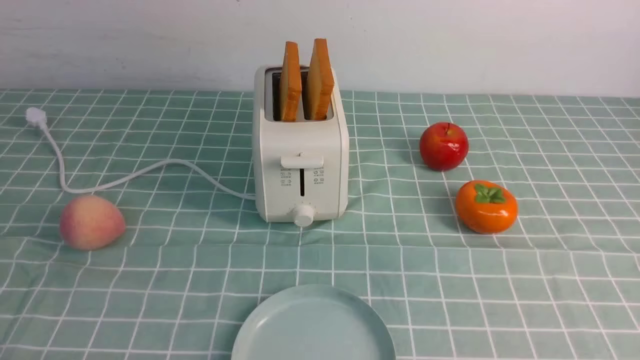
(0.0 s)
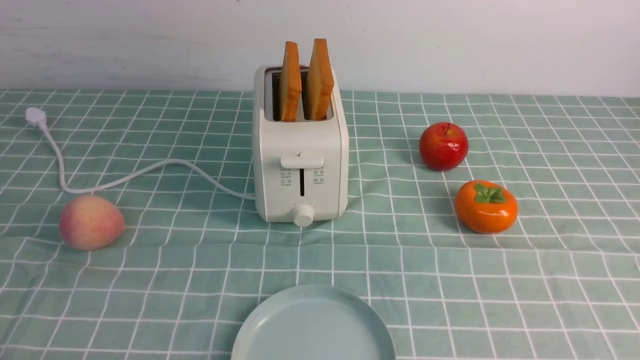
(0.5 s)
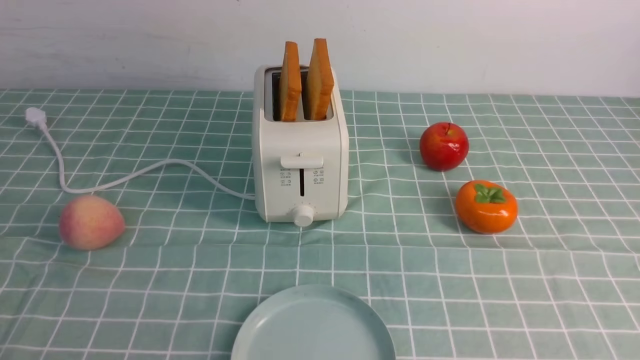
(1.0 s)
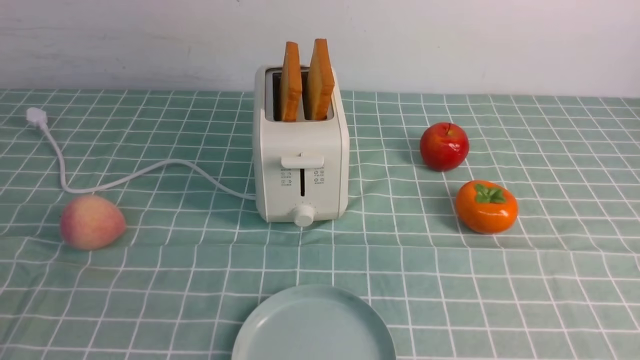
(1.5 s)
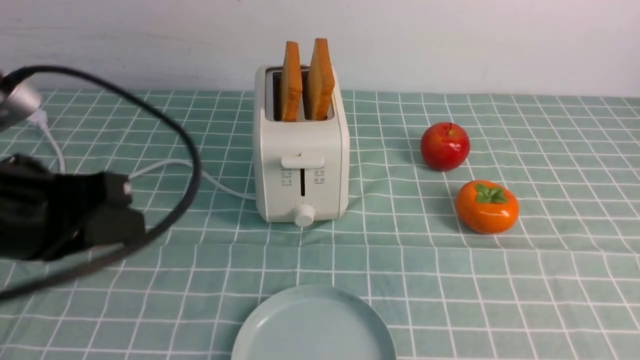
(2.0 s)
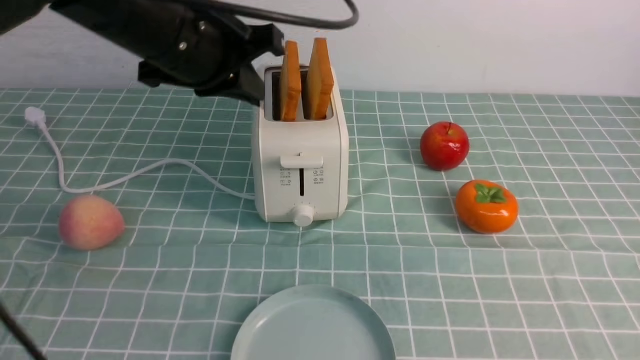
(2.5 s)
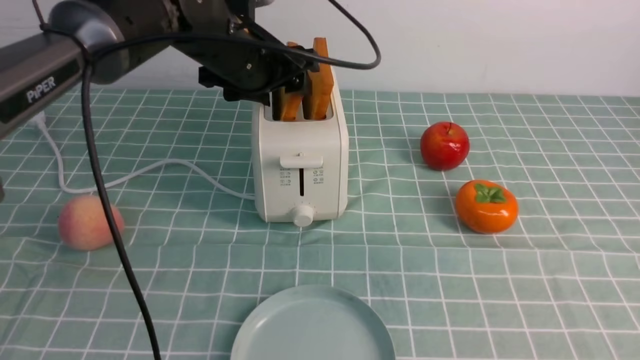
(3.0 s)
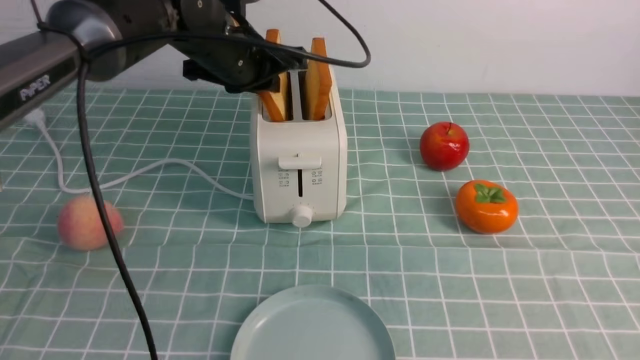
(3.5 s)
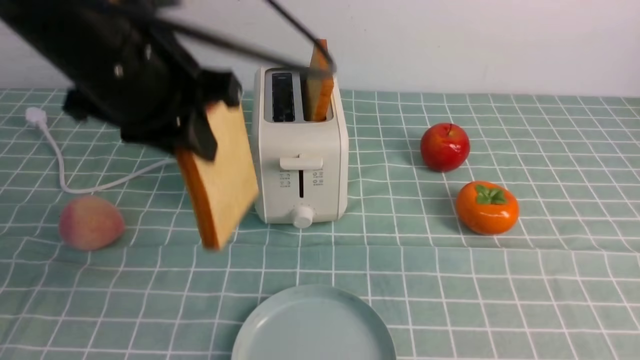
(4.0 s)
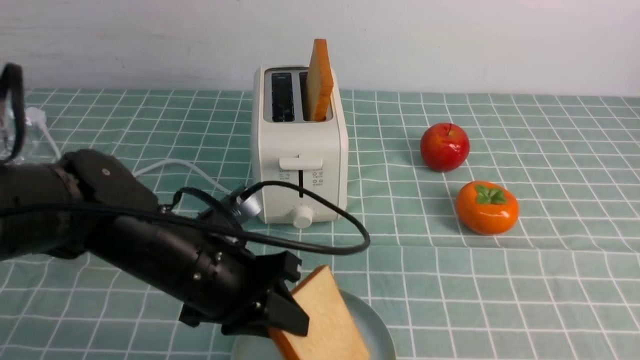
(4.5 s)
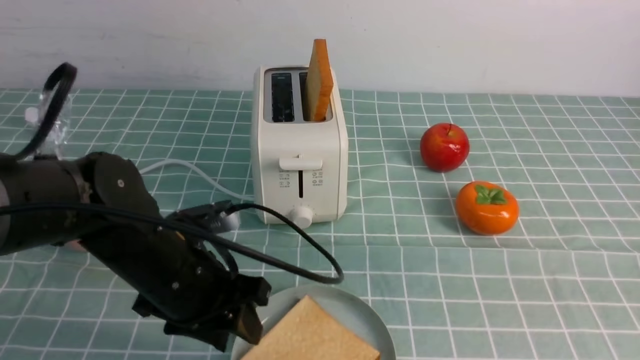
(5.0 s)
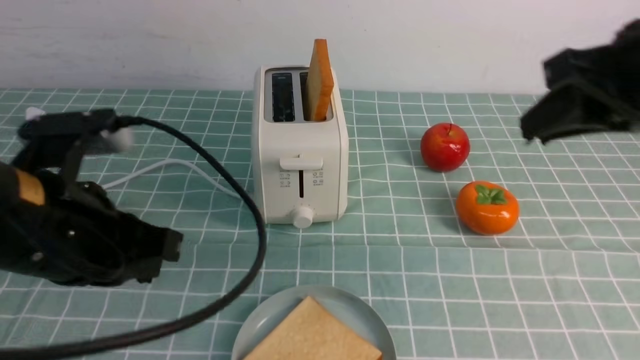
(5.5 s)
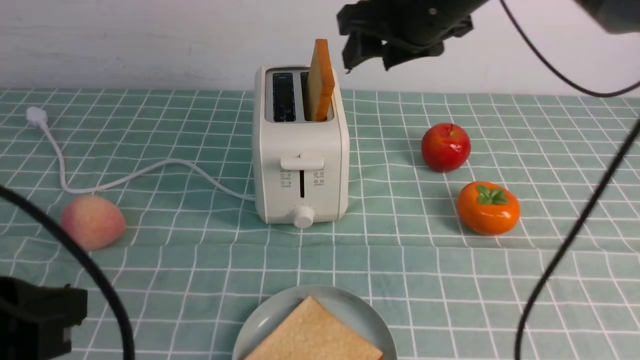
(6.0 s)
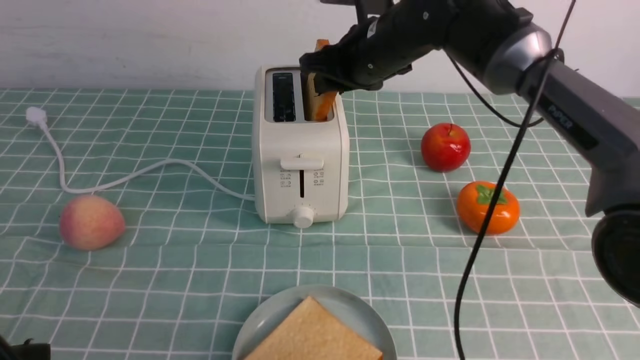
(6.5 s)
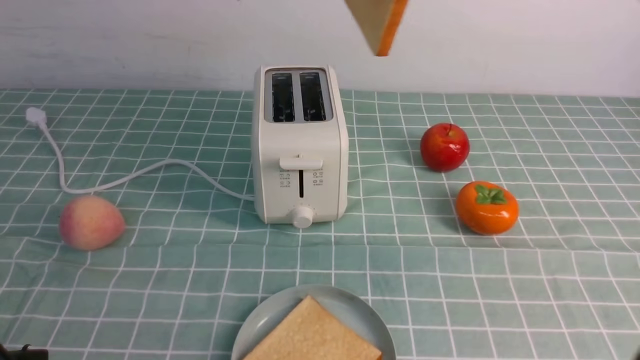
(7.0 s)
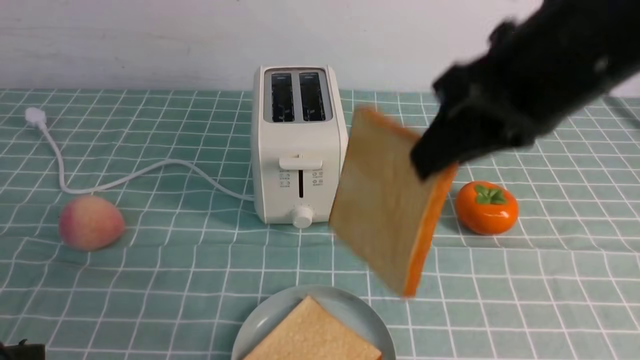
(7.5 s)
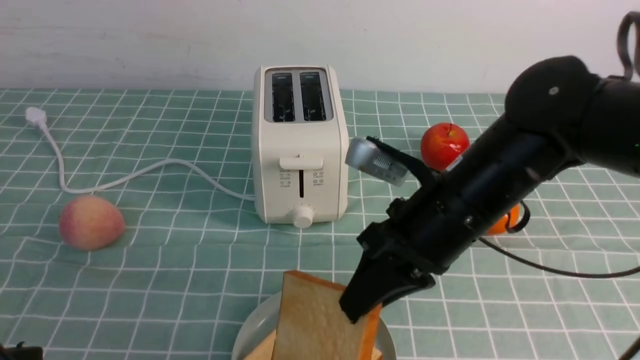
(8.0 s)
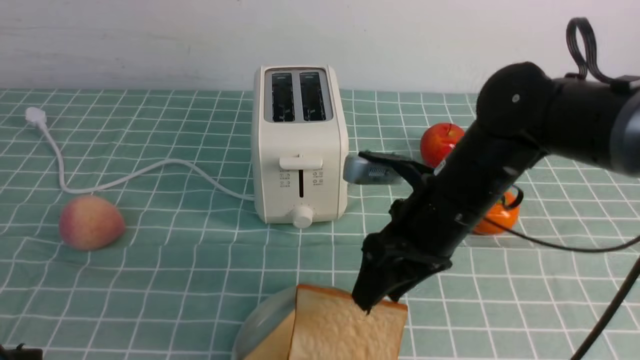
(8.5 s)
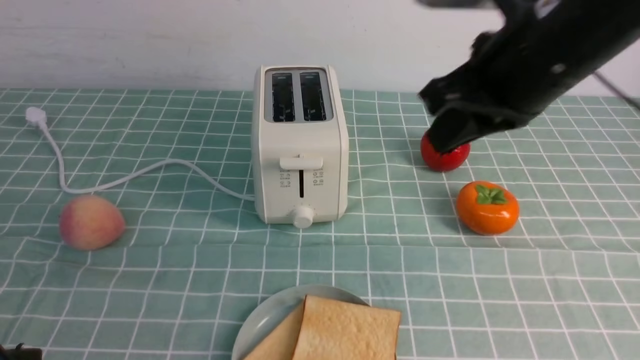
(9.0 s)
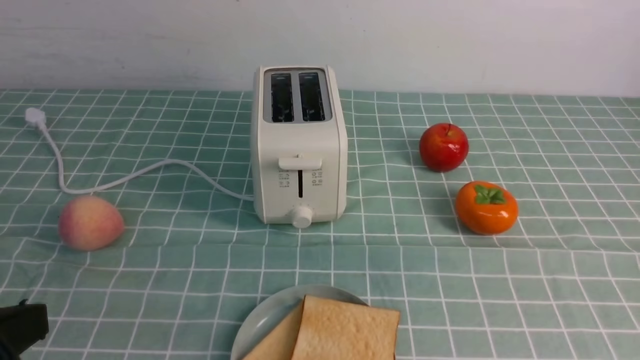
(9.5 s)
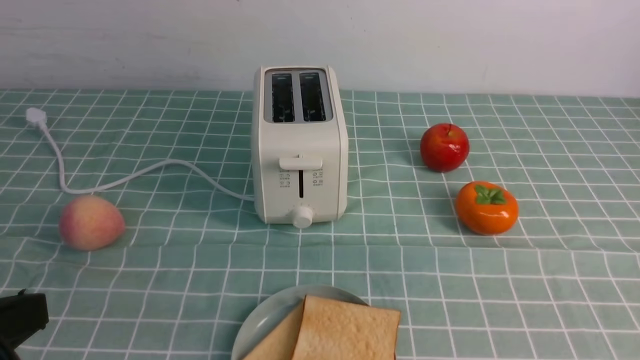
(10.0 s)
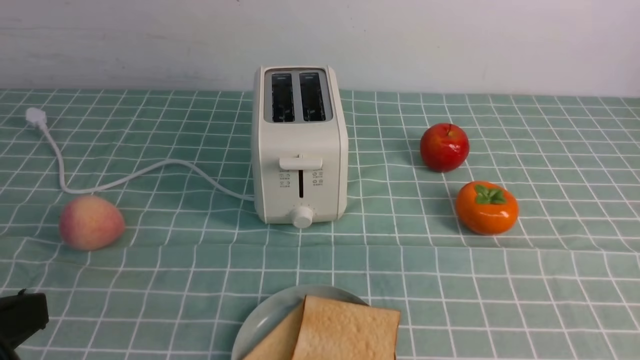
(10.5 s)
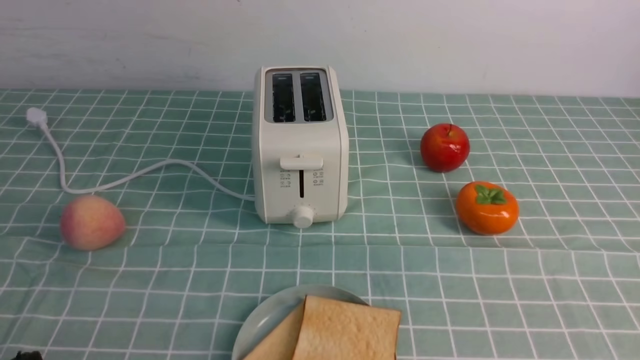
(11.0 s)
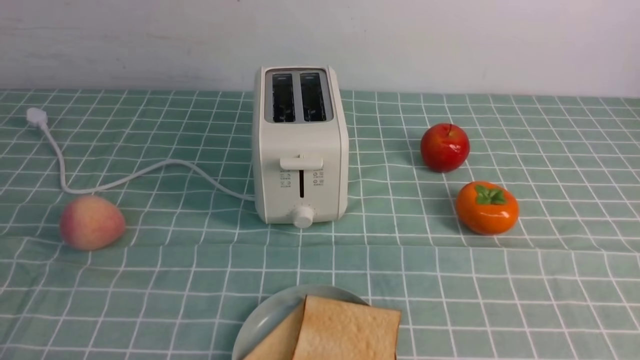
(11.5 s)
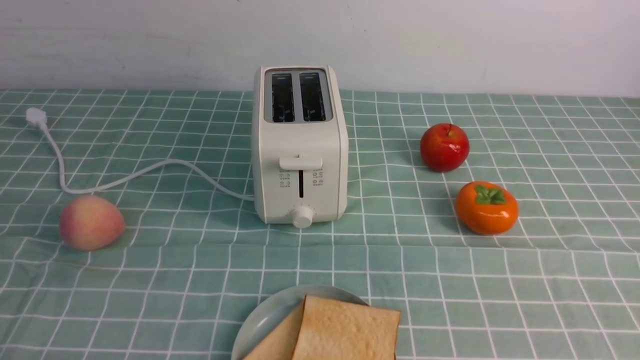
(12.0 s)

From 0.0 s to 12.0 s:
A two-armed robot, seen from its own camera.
Task of the whole recording: take toasted bread from bread machine on blue coffee table place on plate.
Step, from 0.0 s to 3.5 s: use the left arm to take out a slice of bread.
Step, from 4.0 s to 5.0 s: use the left arm to put a slice of bread into the empty plate.
Step, from 5.5 s to 7.0 s: use the right arm to take out a slice of bread.
Step, from 7.5 s to 8.5 s: use the right arm to put a slice of bread into the plate.
From 0.0 s to 2.0 s: The left gripper goes about 25 cm upward and forward, and closes up.
From 2.0 s to 4.0 s: The left gripper shifts approximately 10 cm forward and to the right, and opens, then closes again. Meanwhile the right gripper moves roughly 5 cm.
From 4.0 s to 6.0 s: The left gripper travels backward and to the left by some 20 cm, and opens, then closes again. The right gripper moves forward and to the left, approximately 35 cm, and opens.
From 6.0 s to 8.0 s: The right gripper swings up and down, approximately 20 cm each way, with 2 reversals, and closes up.
From 8.0 s to 10.0 s: The right gripper travels backward and to the right by about 30 cm, and closes its fingers.
From 10.0 s to 12.0 s: The left gripper is displaced downward by roughly 15 cm.

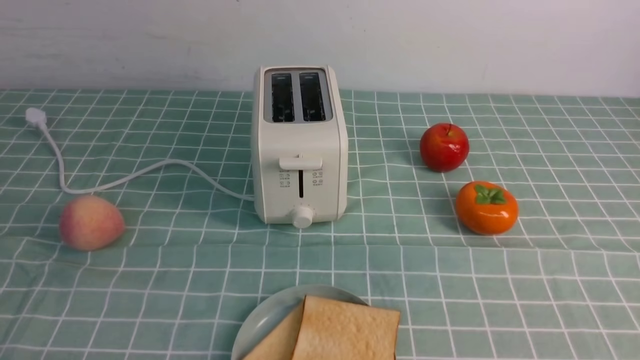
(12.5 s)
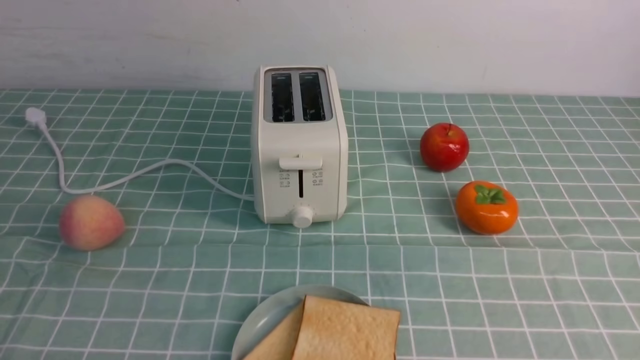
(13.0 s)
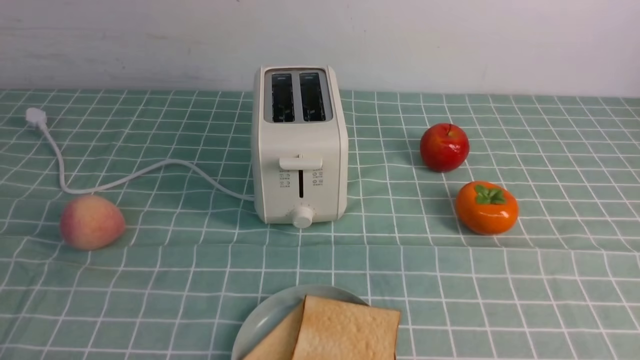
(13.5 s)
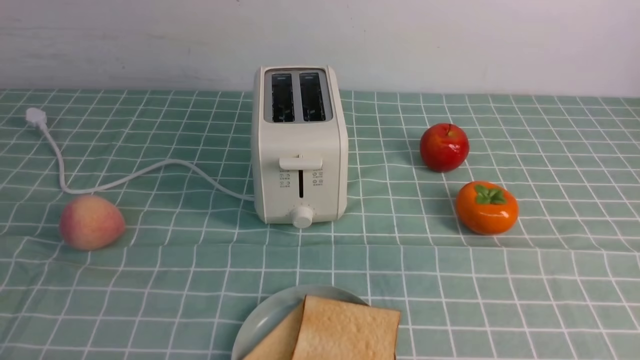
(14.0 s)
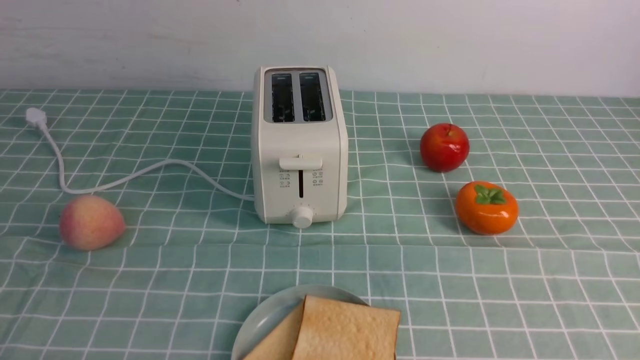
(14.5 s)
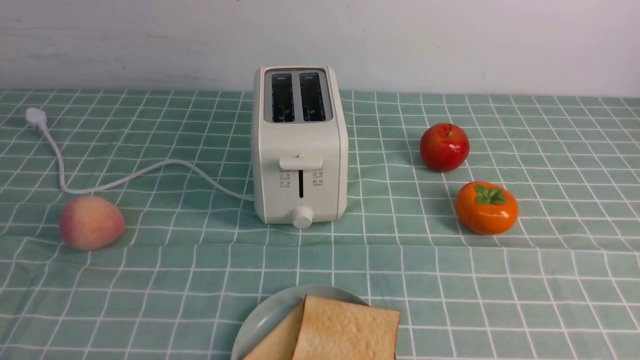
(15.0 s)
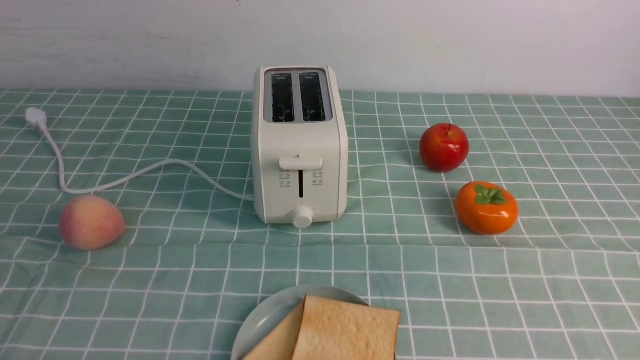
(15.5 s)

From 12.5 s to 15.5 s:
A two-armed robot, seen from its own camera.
Task of the whole recording: take toasted bread from bread machine on blue coffee table place on plate.
From 14.0 s to 15.5 s: Both grippers stay put.
